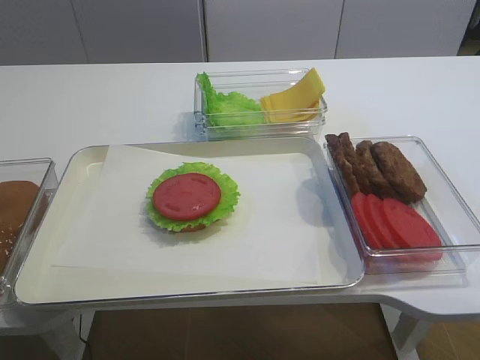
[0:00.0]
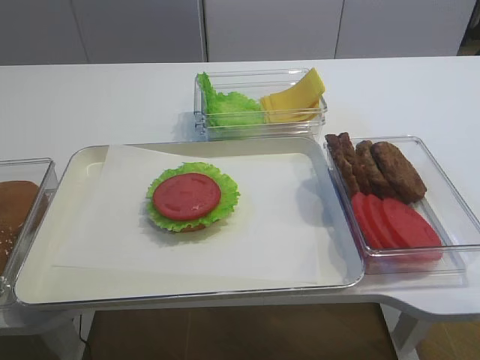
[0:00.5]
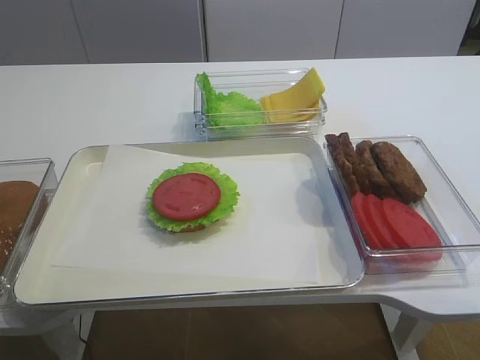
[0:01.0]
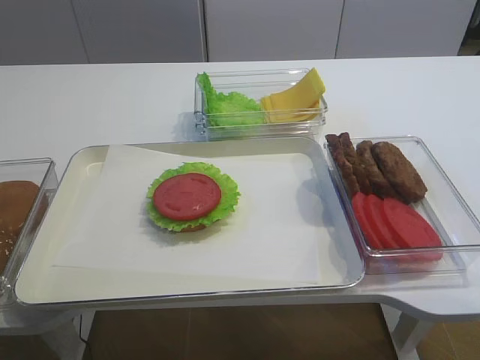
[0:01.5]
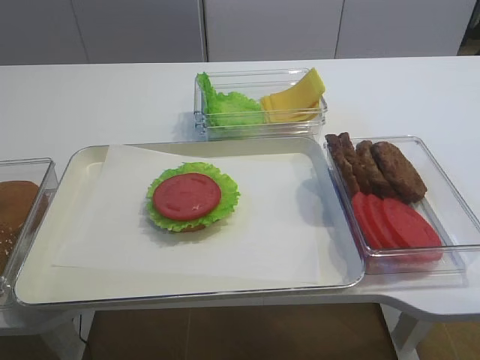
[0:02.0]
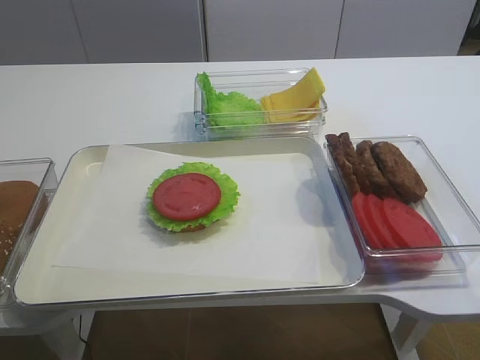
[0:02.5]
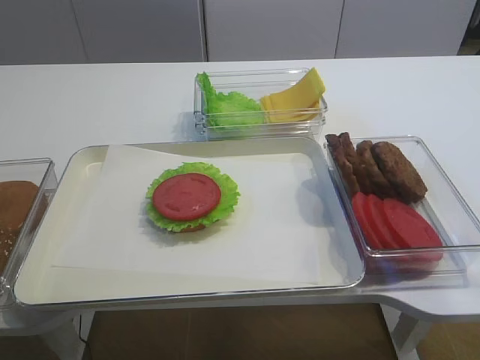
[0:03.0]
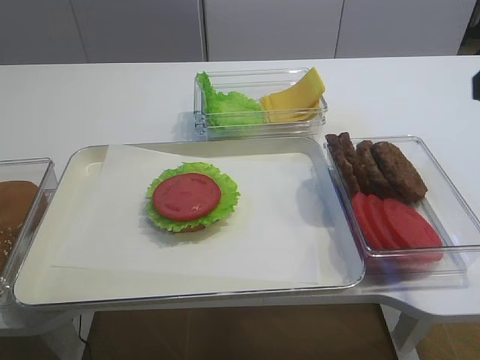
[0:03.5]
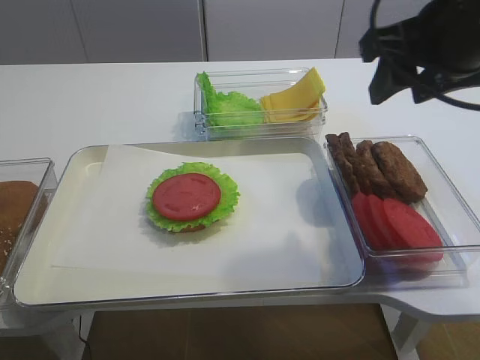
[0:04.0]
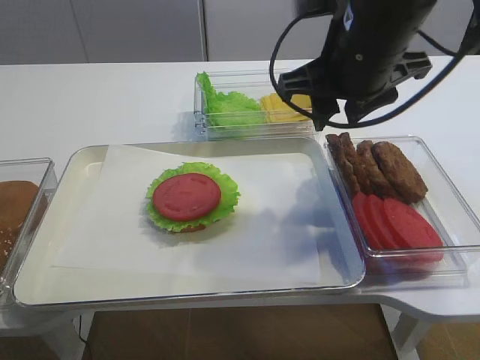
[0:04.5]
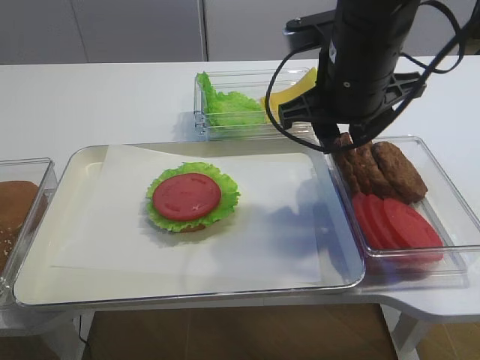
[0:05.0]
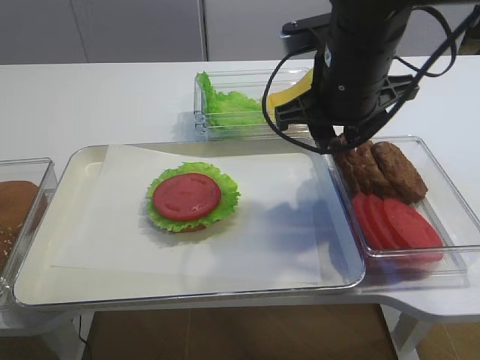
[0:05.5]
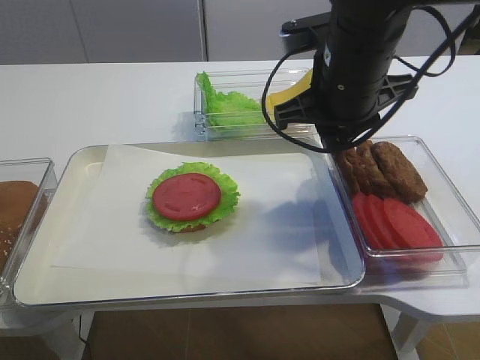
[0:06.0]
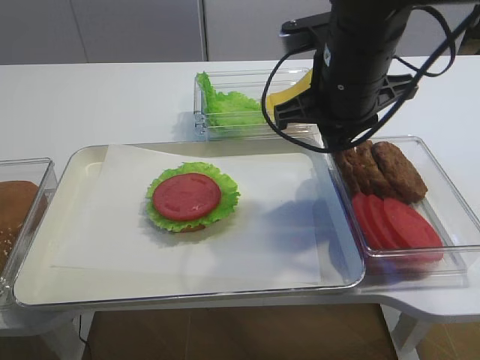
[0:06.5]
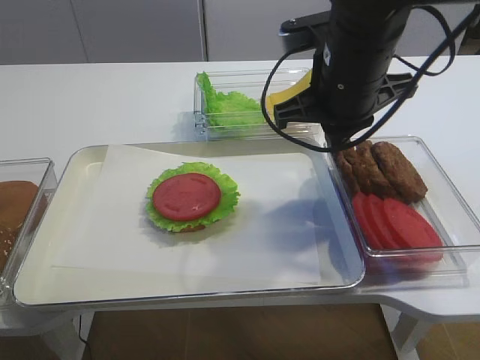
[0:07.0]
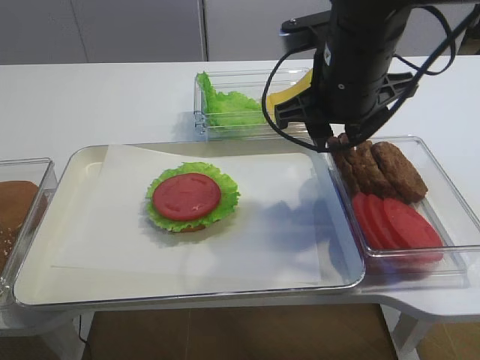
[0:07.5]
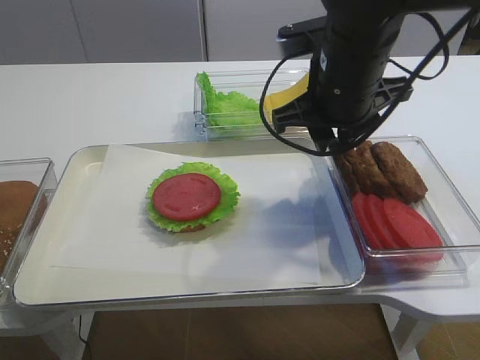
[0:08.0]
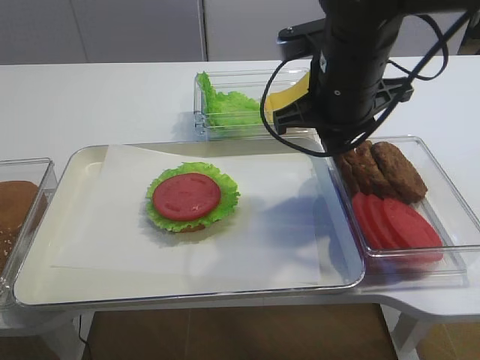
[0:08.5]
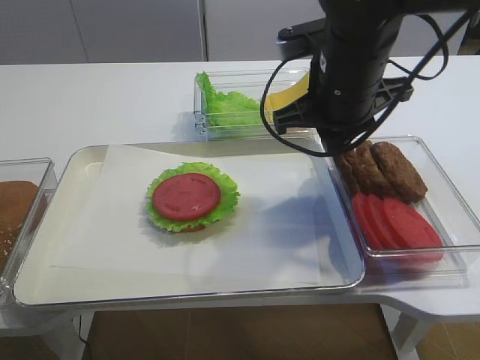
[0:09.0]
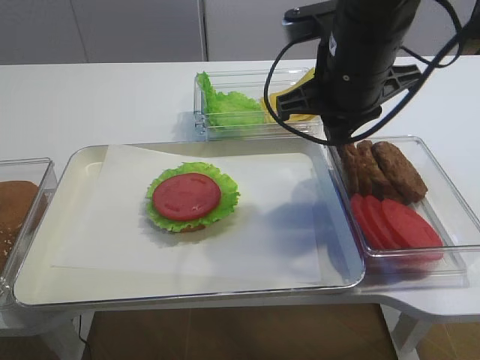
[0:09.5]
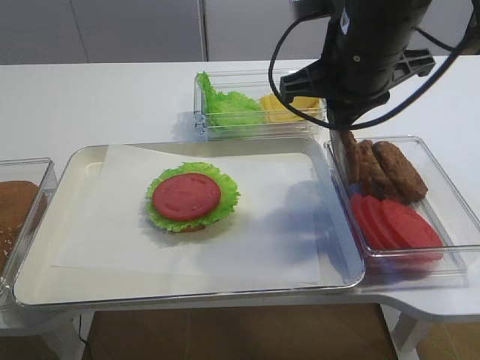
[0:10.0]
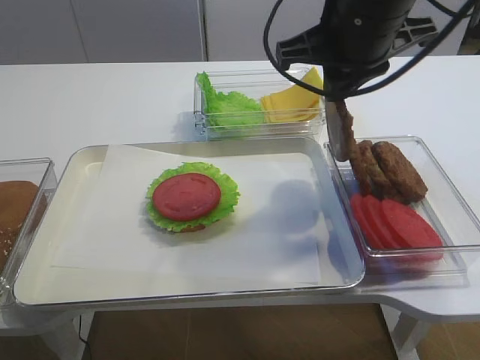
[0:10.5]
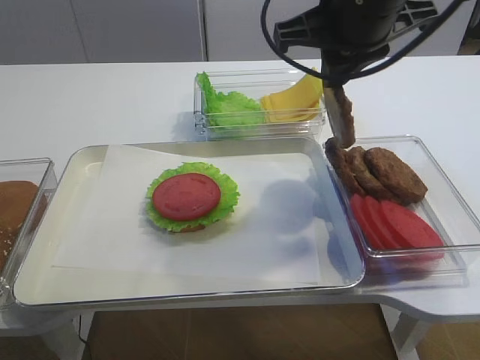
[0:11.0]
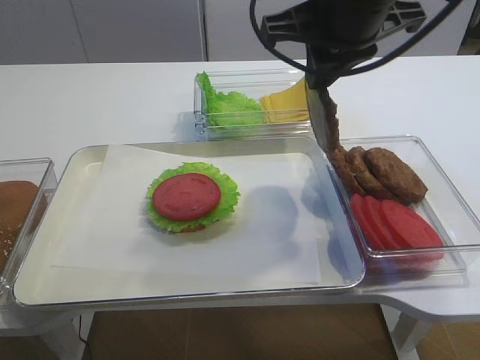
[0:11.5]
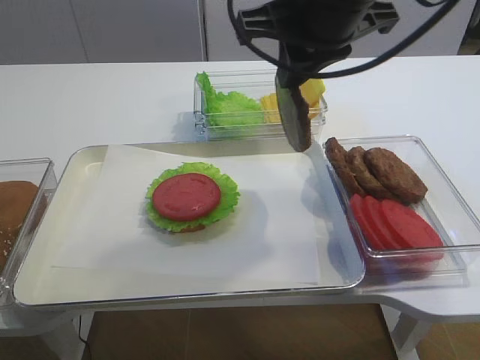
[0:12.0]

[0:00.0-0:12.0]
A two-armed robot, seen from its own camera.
Step, 0:00.0 to 0:10.0: Pick up the cutlet with the right gripper.
0:02.0 to 0:04.0: The right gripper shifts approximately 25 cm forward, and opens its fingers.
0:04.0 to 0:06.0: The right gripper moves to the left, downward and forward, approximately 10 cm, and closes.
0:06.0 to 0:08.0: The right gripper closes, then reopens.
0:08.0 to 0:10.0: The right gripper closes its fingers.
0:10.0 to 0:12.0: The right gripper moves upward, approximately 5 cm.

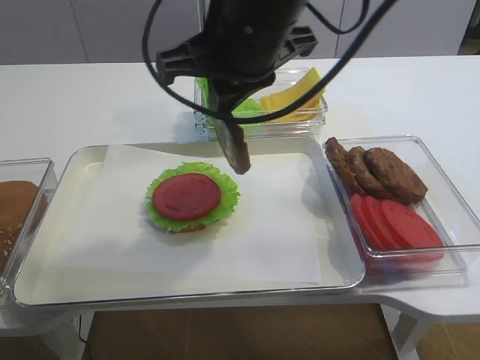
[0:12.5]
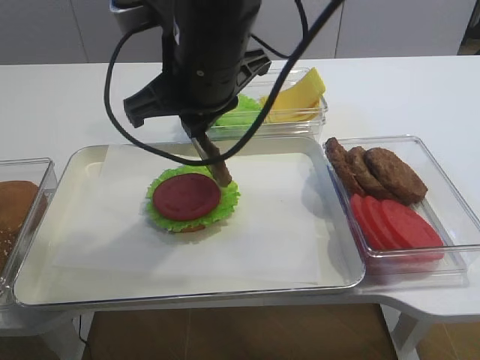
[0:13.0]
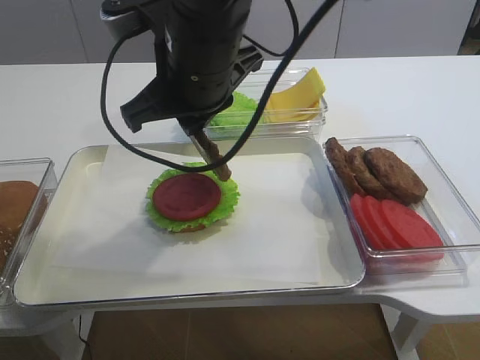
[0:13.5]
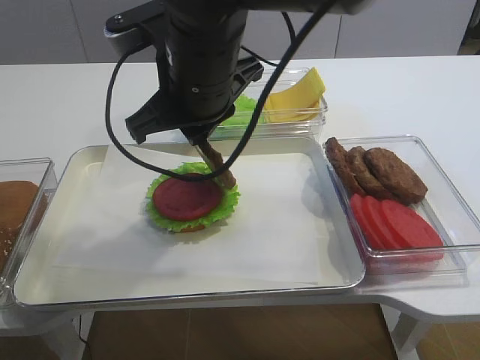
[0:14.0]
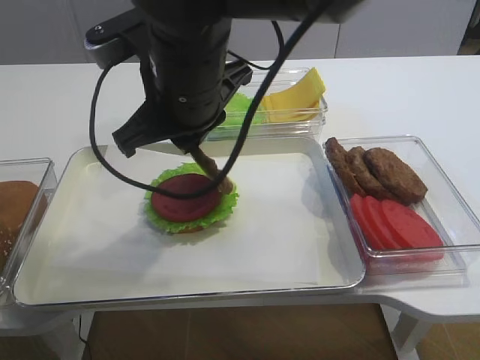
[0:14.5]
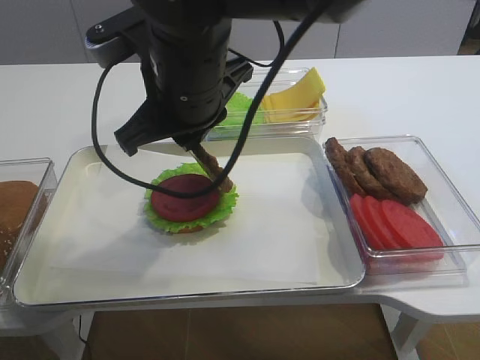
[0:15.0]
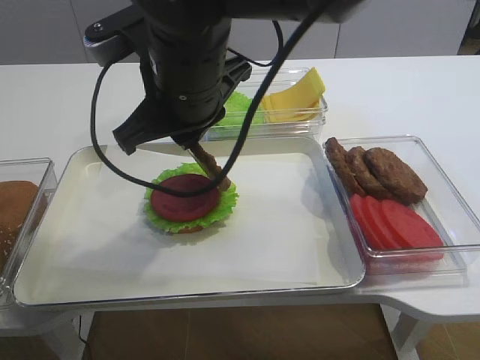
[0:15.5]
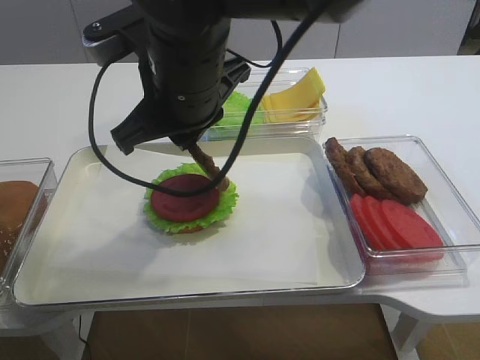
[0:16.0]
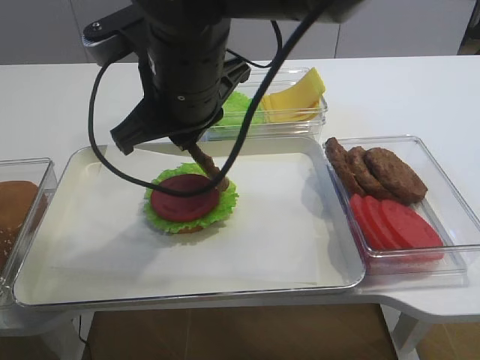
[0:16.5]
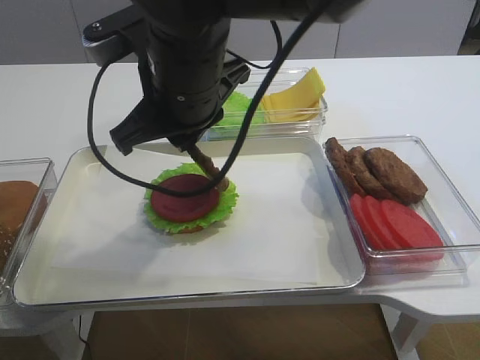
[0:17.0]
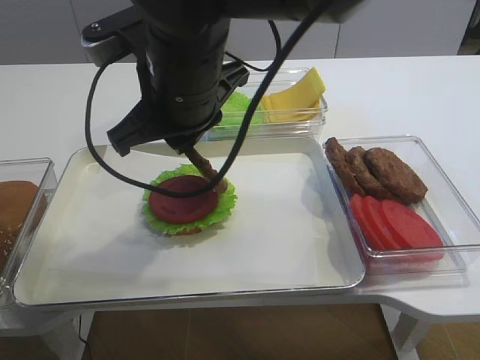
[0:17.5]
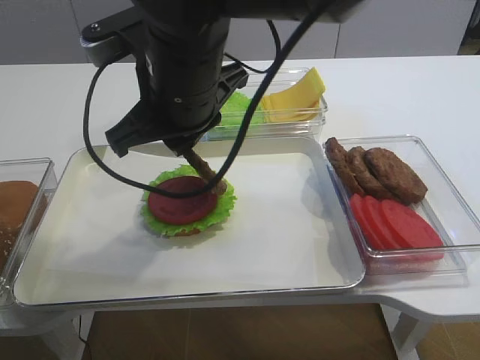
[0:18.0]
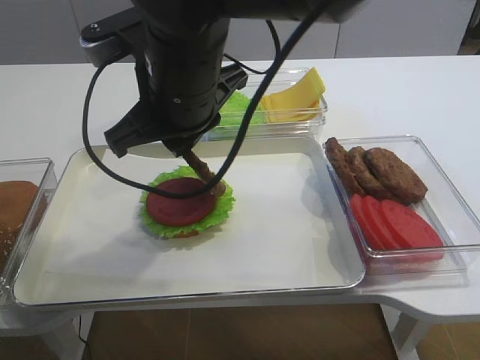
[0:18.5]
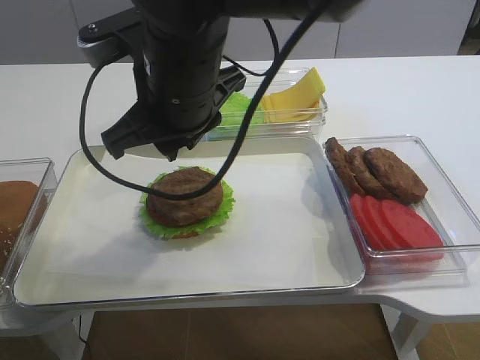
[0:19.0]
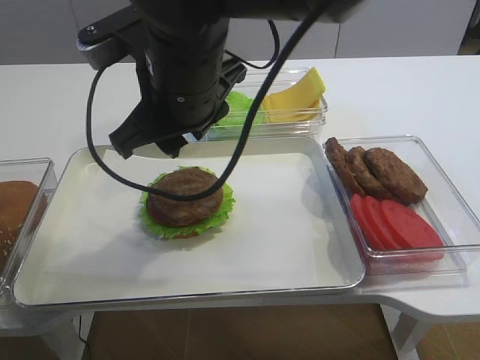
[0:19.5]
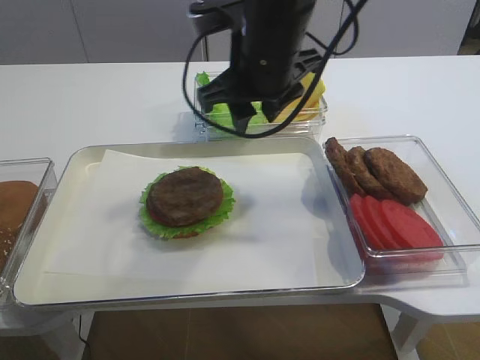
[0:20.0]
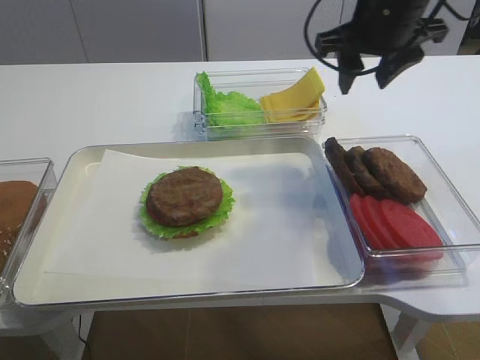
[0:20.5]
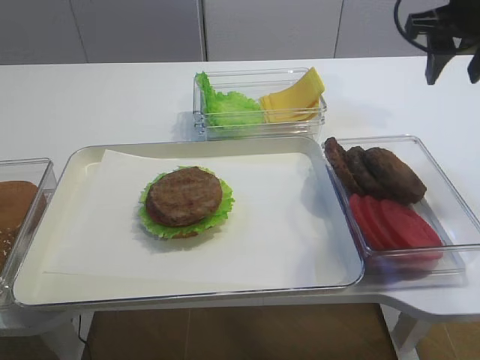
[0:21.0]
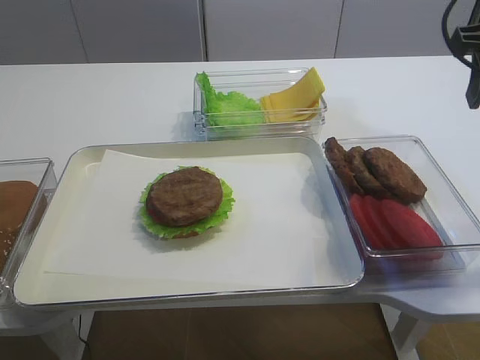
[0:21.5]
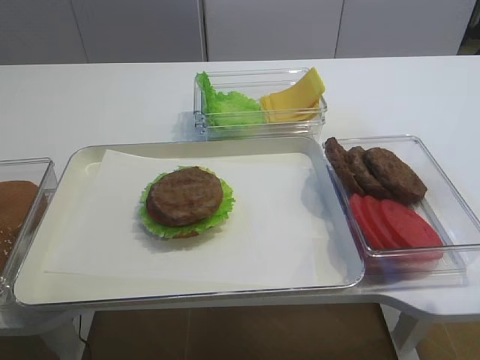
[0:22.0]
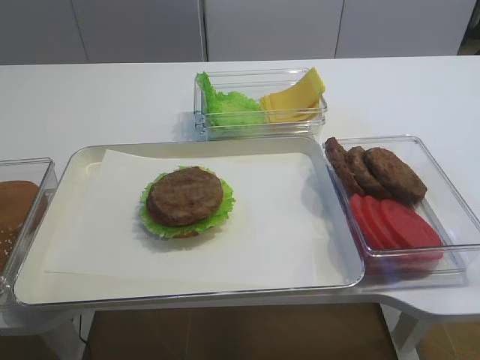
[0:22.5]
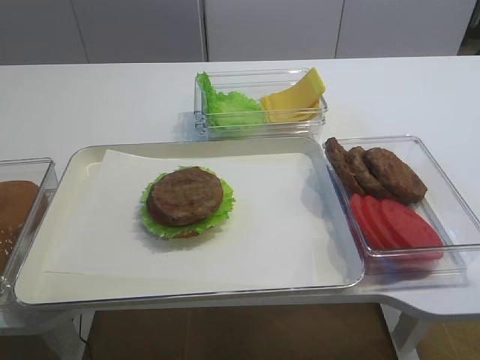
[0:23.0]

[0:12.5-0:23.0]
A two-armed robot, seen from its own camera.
Step, 0:12.5 to 0:19.0: Place the cutlet on the tomato slice with the right gripper.
0:12.5 to 0:14.5: The right gripper travels to the left by approximately 5 cm.
0:14.5 to 0:19.0: Both grippers stay about where they are.
0:19.0 to 0:21.0: The right gripper heads to the right, covering about 30 cm, and opens up.
0:21.0 to 0:23.0: The right gripper is displaced backward by roughly 35 cm.

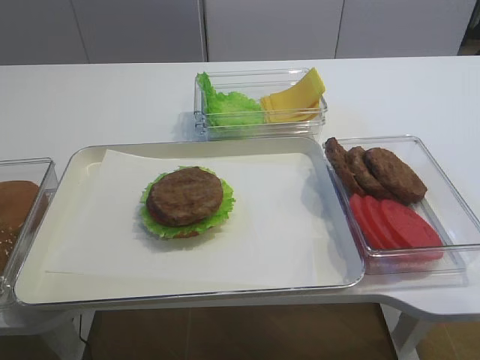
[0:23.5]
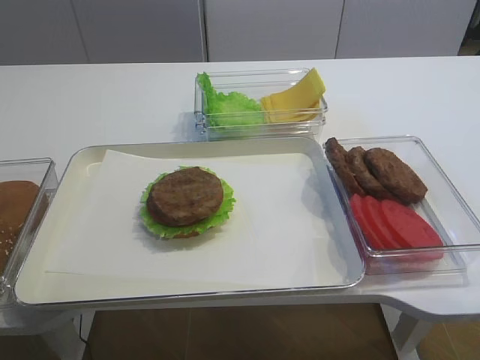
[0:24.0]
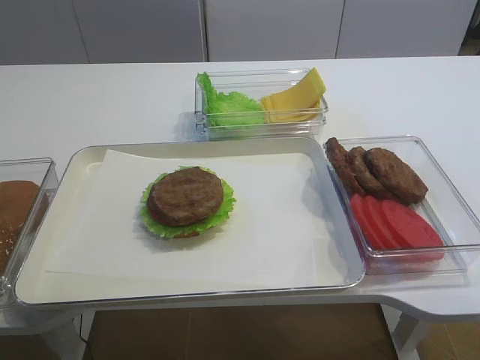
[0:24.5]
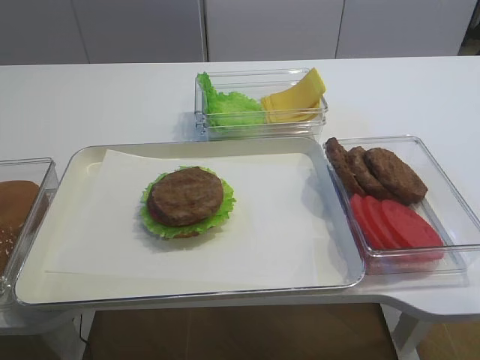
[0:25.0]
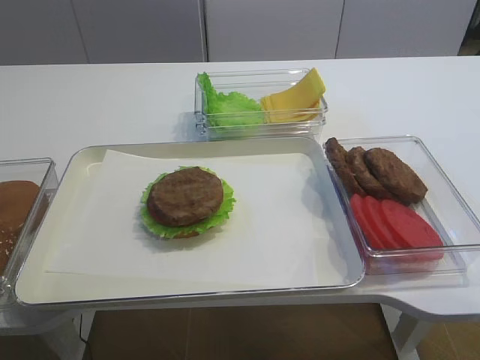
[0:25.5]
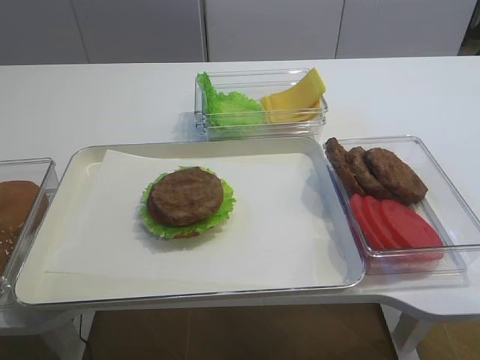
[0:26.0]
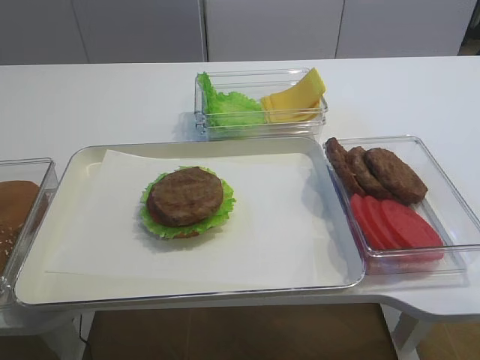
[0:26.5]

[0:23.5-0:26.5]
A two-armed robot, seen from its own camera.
0:25.0 to 0:26.5: Both grippers stay put.
